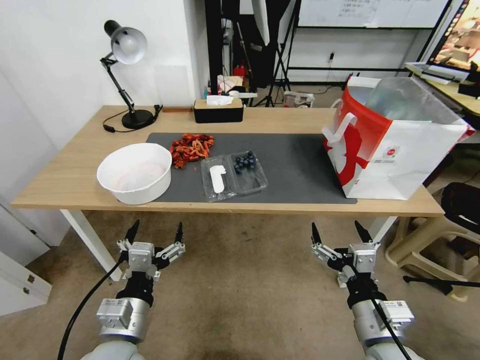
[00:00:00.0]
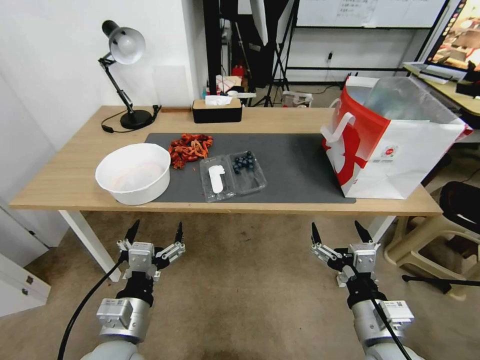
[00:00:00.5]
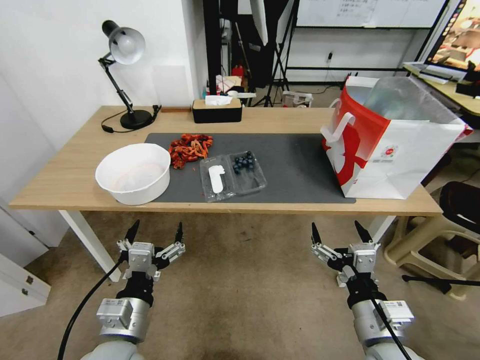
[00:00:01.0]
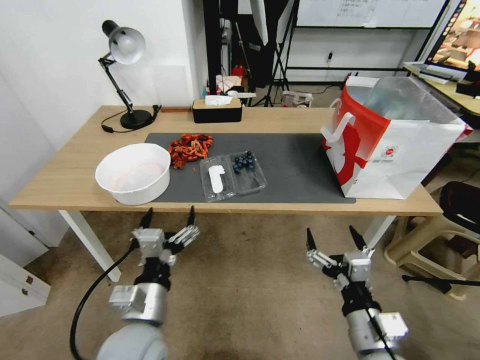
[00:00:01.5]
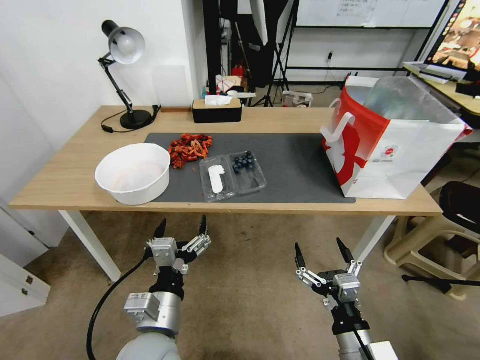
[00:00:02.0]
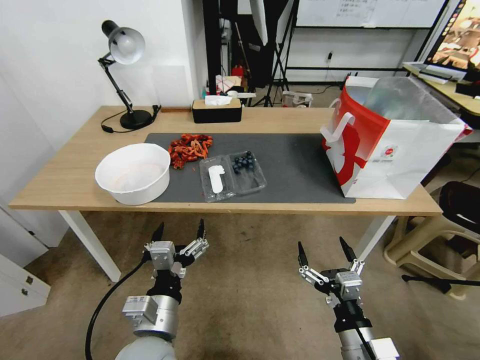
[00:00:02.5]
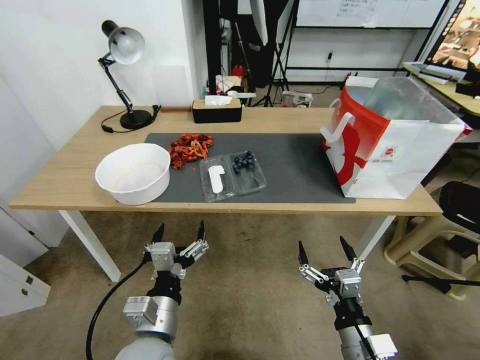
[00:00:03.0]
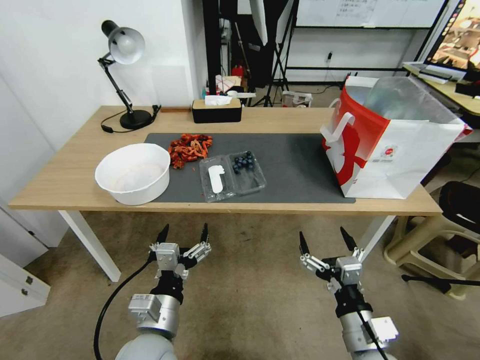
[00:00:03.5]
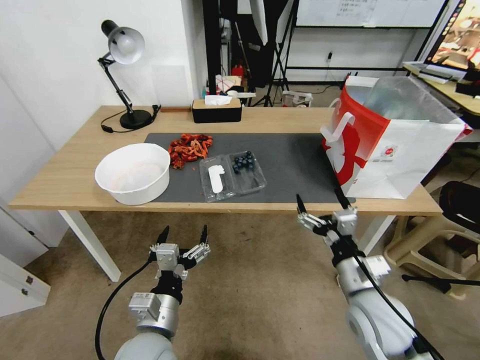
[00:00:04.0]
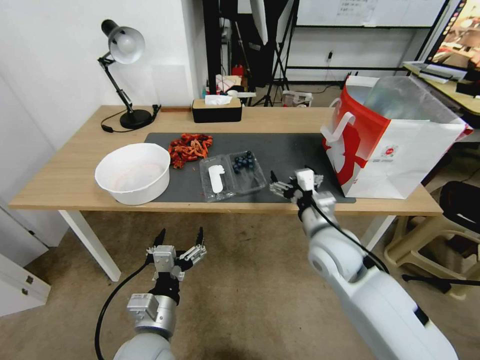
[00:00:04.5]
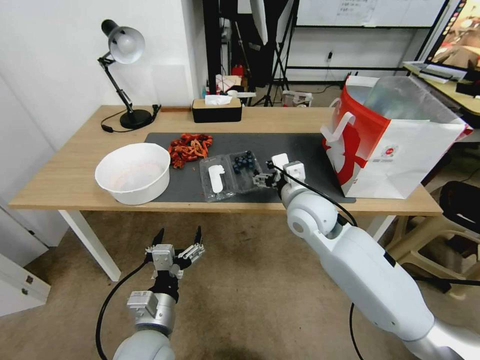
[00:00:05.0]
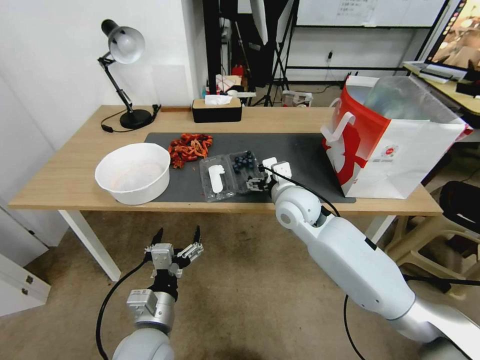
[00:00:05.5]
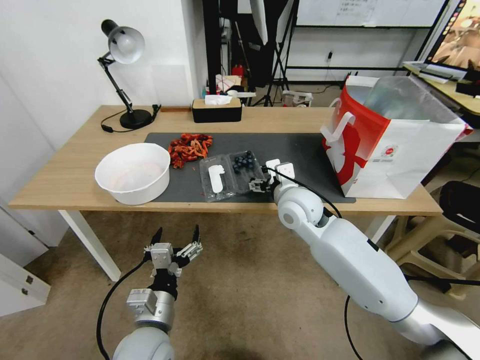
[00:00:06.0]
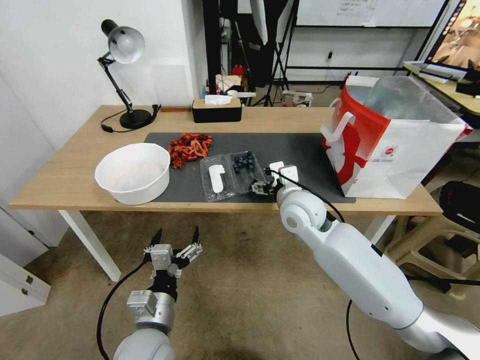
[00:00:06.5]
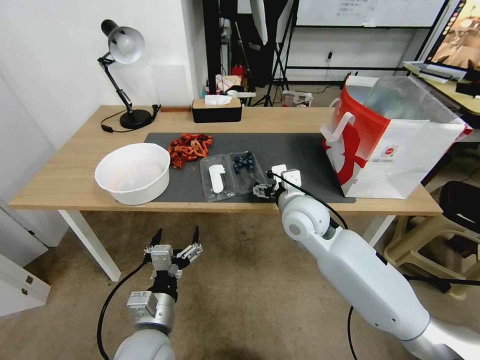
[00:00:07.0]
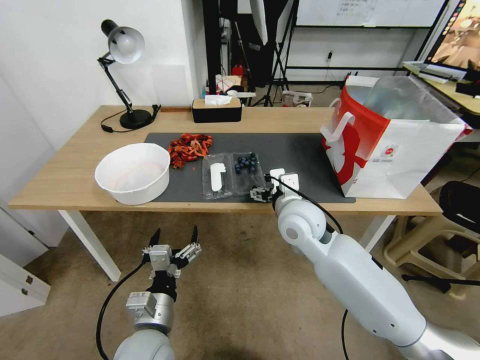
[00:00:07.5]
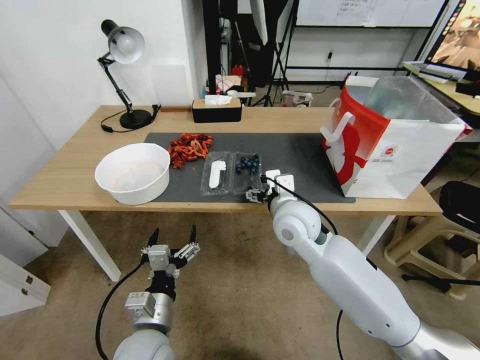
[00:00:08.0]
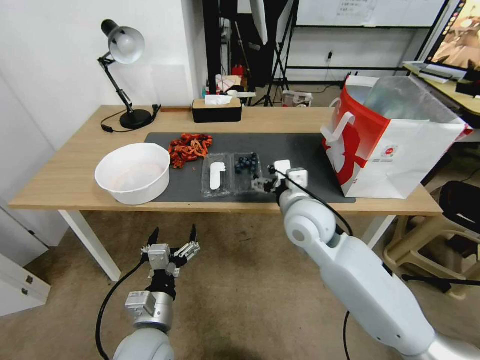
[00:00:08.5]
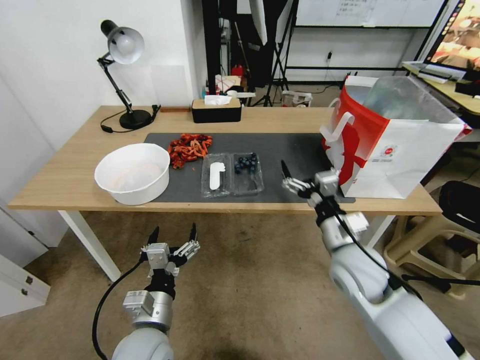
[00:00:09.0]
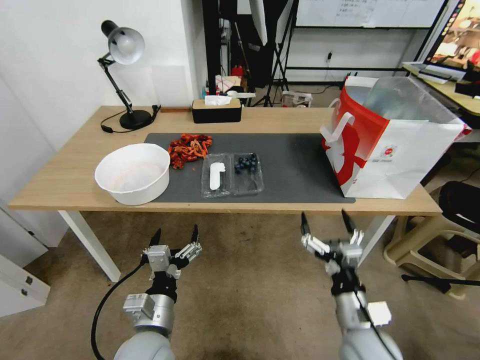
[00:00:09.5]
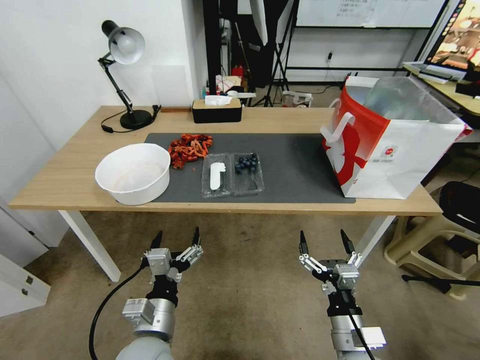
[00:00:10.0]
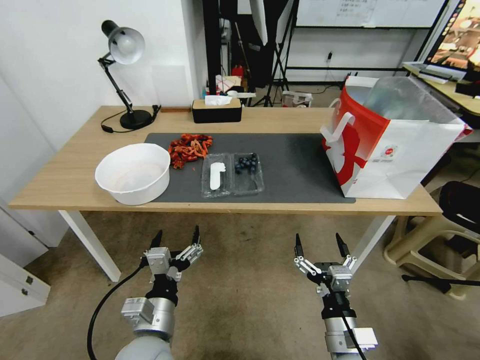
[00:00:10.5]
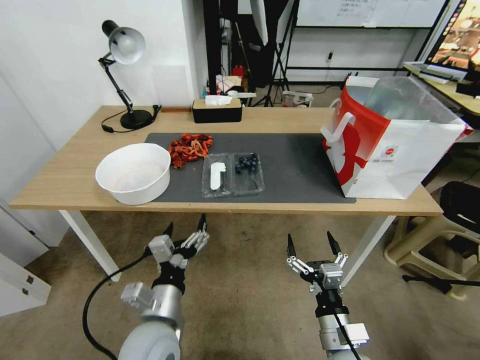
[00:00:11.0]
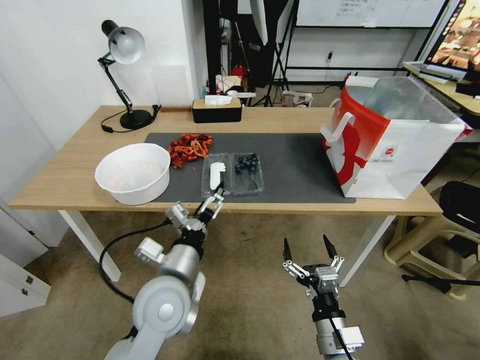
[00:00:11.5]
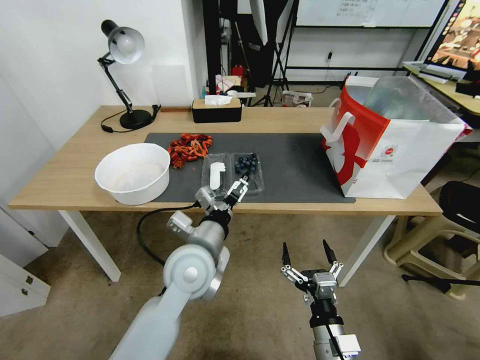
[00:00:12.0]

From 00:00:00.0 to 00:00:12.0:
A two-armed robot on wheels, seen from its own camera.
Task of the whole recording: Close the takeout container lid, then place the container into the takeout bag.
From 00:00:02.0 to 00:00:04.0: The right gripper goes approximately 10 cm forward and upward.
From 00:00:04.0 to 00:00:06.0: The right gripper travels forward and to the left by roughly 25 cm.
From 00:00:06.0 to 00:00:08.0: The grippers move only a little.
From 00:00:08.0 to 00:00:10.0: The right gripper is displaced backward, downward and to the right by roughly 30 cm.
From 00:00:10.0 to 00:00:12.0: The left gripper shifts about 20 cm forward, upward and to the right.

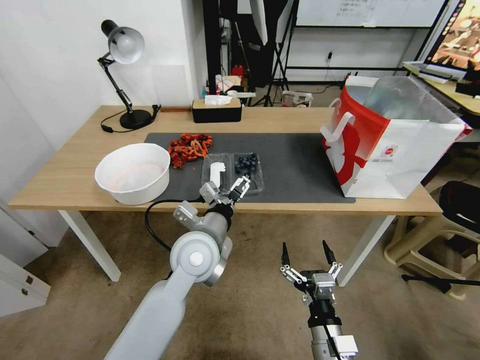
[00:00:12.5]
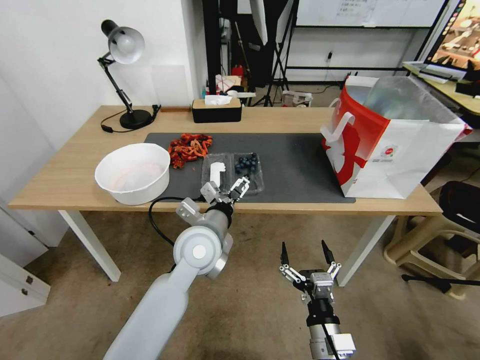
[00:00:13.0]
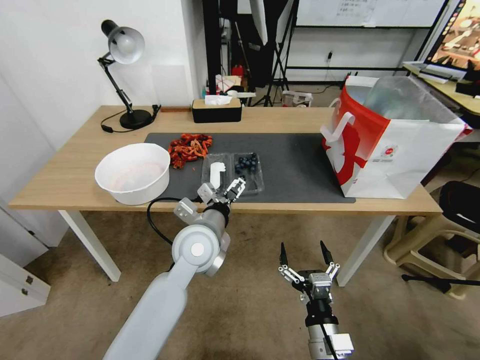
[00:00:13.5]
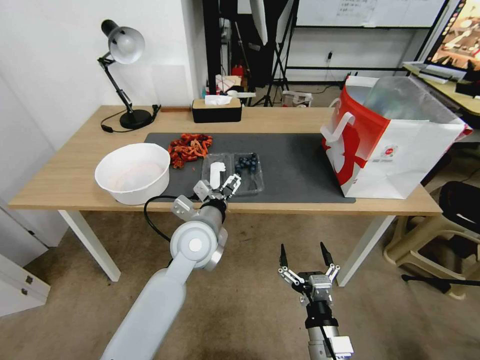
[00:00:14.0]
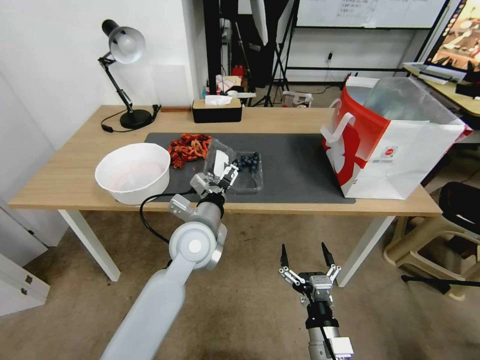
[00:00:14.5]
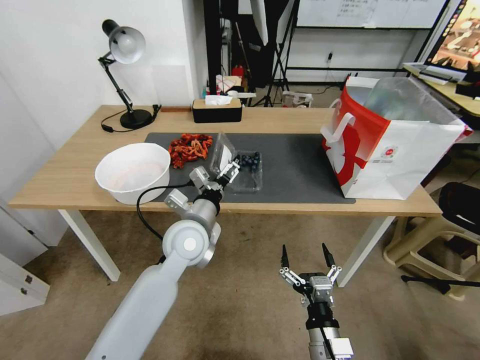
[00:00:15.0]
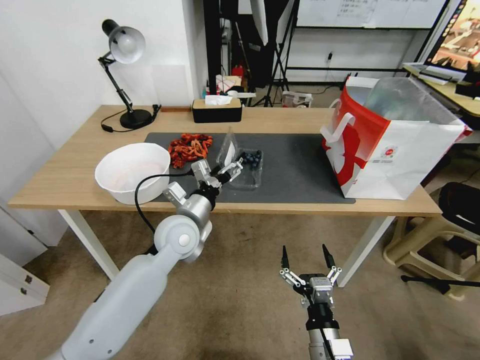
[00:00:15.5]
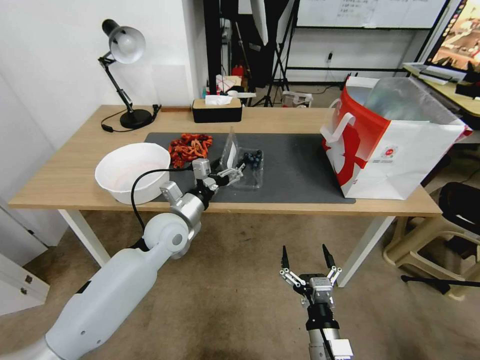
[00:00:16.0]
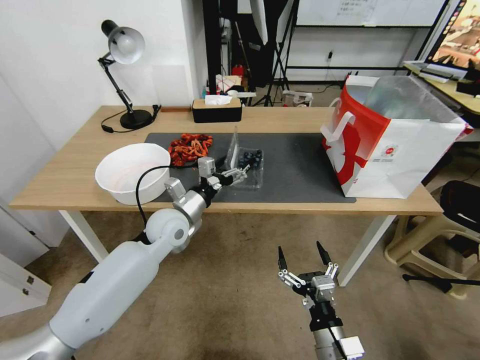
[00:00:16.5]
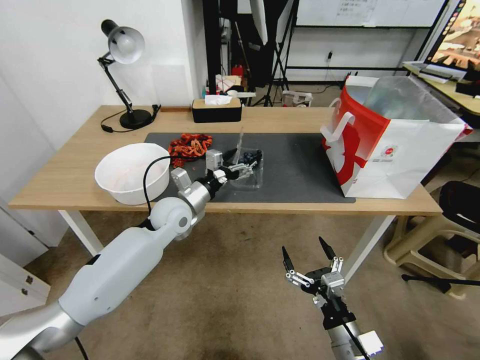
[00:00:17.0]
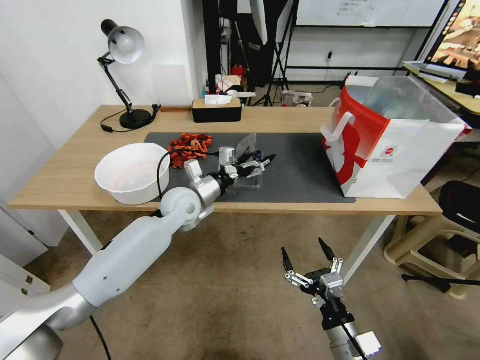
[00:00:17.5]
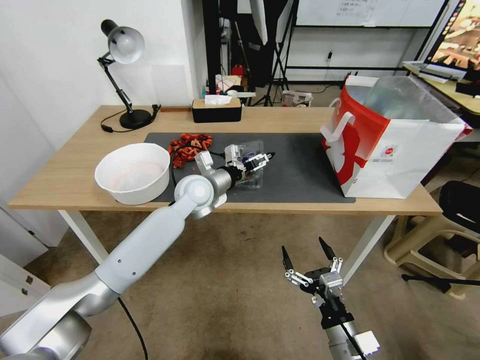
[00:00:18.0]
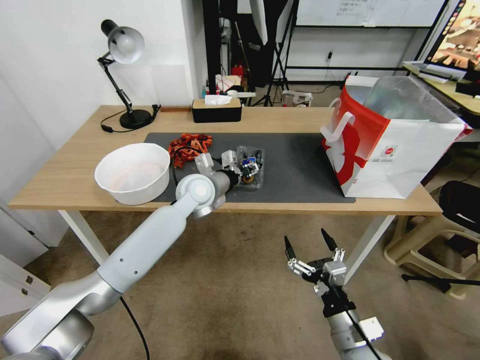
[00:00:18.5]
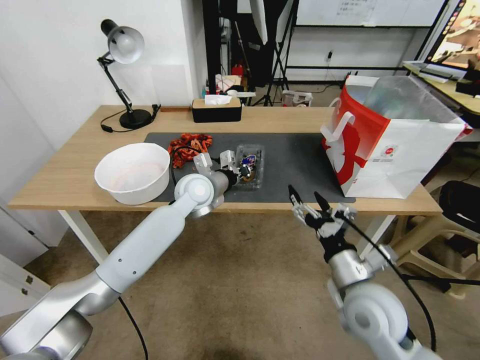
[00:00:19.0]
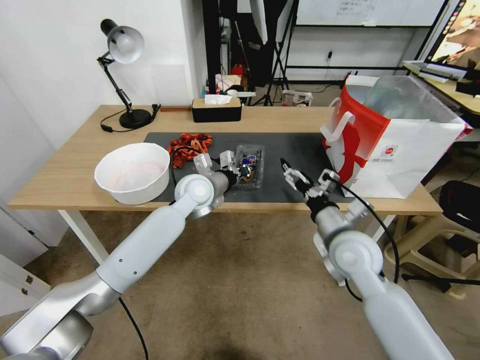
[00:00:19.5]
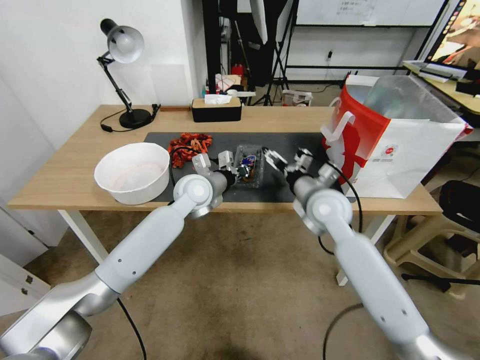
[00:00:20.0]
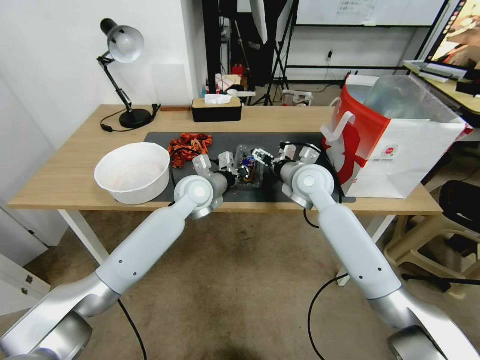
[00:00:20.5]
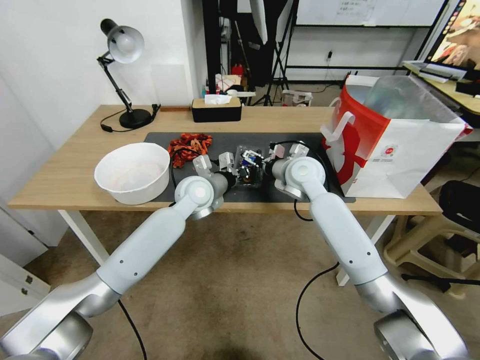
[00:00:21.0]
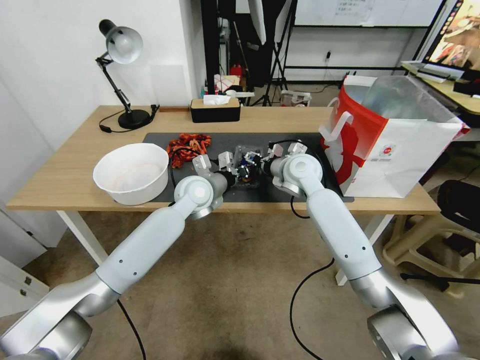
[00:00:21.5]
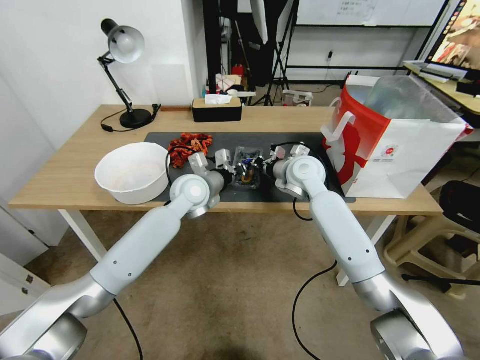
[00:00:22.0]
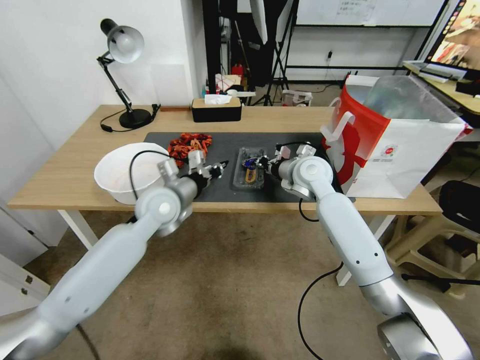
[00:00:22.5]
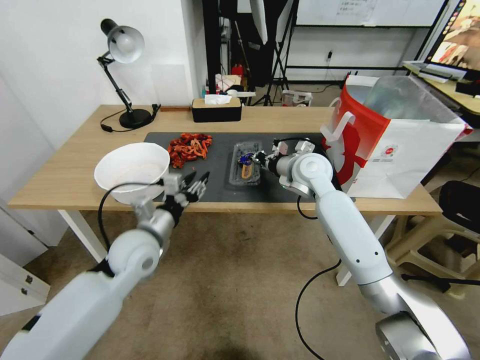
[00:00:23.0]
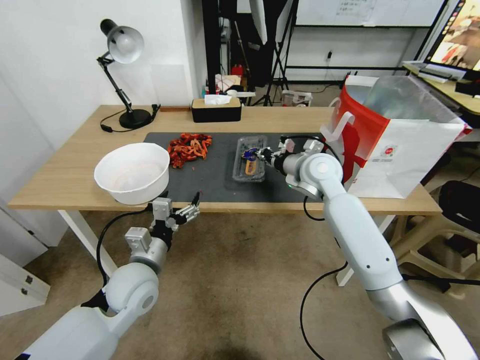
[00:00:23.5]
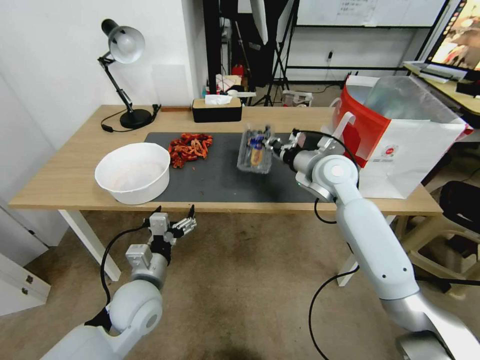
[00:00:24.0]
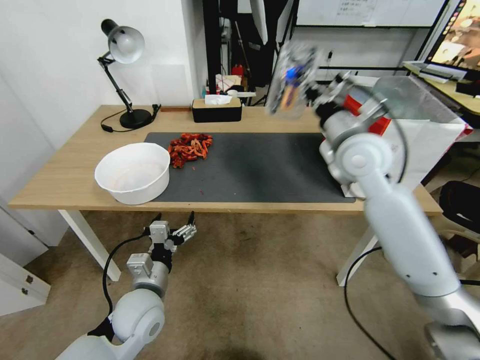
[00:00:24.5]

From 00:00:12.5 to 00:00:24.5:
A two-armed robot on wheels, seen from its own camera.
Task of the whole recording: Close the takeout container lid, then place the container into the takeout bag.
From 00:00:12.5 to 00:00:14.5: The grippers make only small movements.
From 00:00:14.5 to 00:00:16.5: The left gripper heads to the left and forward, covering roughly 10 cm.
From 00:00:16.5 to 00:00:18.5: The right gripper shifts by about 5 cm. The left gripper shifts roughly 10 cm forward and to the right, and closes.
From 00:00:18.5 to 00:00:20.5: The right gripper goes some 35 cm forward and upward, while the left gripper closes.
From 00:00:20.5 to 00:00:22.5: The left gripper goes roughly 5 cm to the left. The right gripper closes its fingers.
From 00:00:22.5 to 00:00:24.5: The right gripper travels upward, backward and to the right by about 15 cm; the left gripper moves backward and downward, about 25 cm, and opens up.

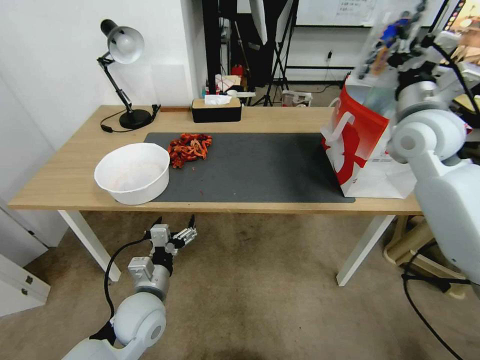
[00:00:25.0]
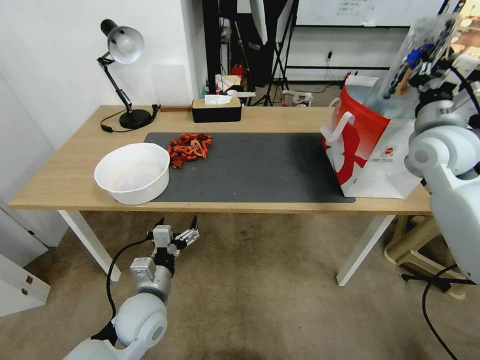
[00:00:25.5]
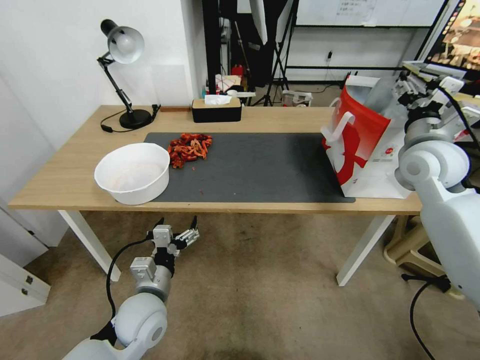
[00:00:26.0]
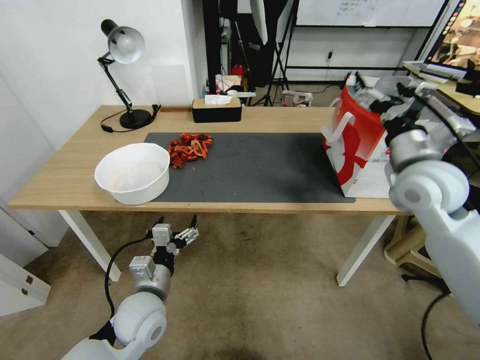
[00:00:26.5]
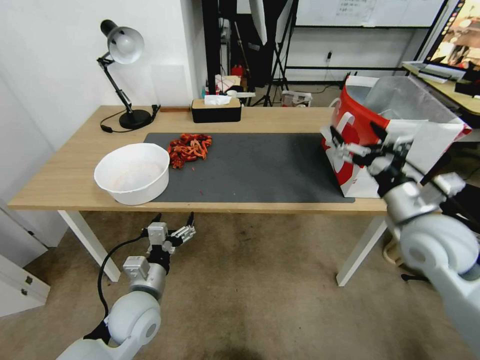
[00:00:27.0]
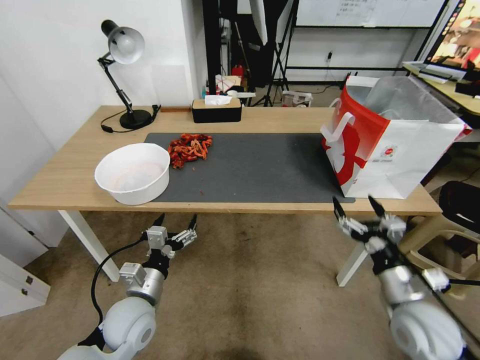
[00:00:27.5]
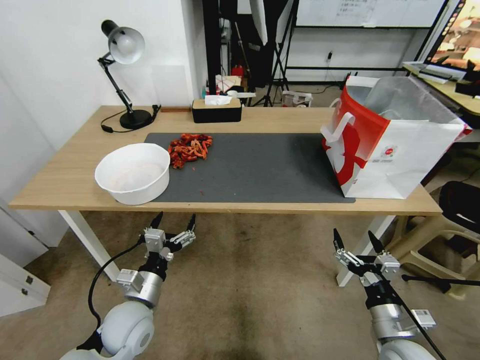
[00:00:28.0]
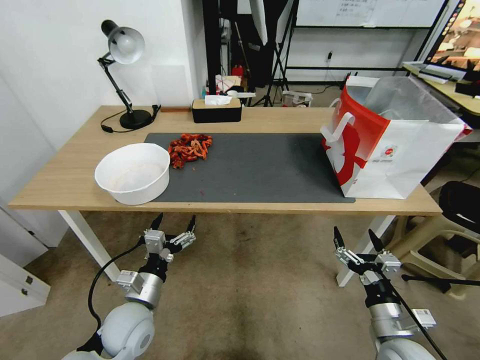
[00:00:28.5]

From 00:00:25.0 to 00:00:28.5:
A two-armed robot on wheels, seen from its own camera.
Task of the whole recording: Close the takeout container lid, then place the container into the takeout bag.
From 00:00:25.0 to 00:00:27.0: The right gripper goes approximately 20 cm backward and downward, and opens its fingers.
From 00:00:27.0 to 00:00:28.5: The right gripper is displaced downward and backward by about 25 cm.
